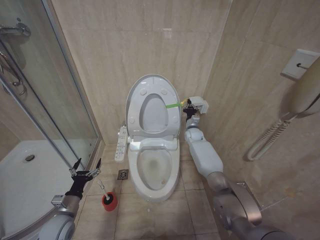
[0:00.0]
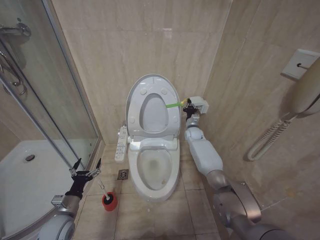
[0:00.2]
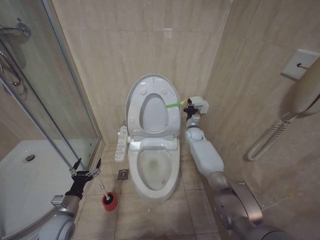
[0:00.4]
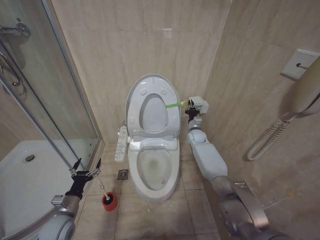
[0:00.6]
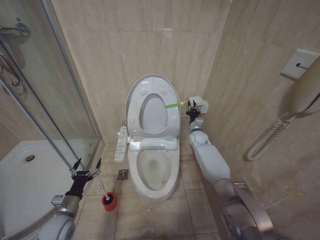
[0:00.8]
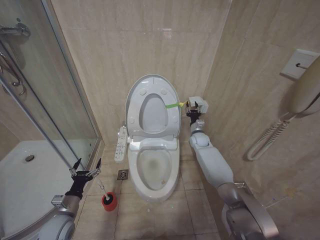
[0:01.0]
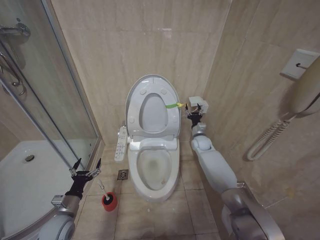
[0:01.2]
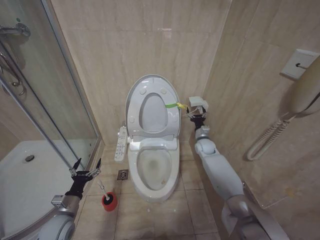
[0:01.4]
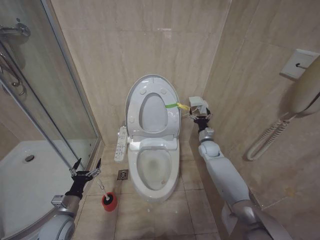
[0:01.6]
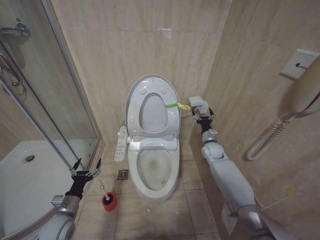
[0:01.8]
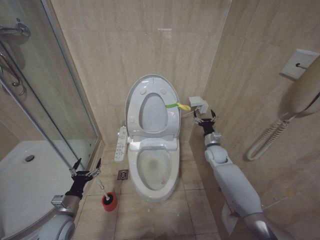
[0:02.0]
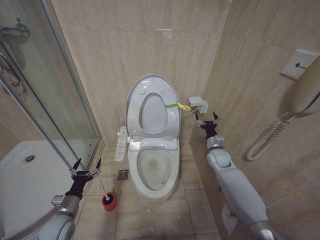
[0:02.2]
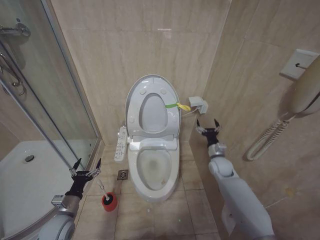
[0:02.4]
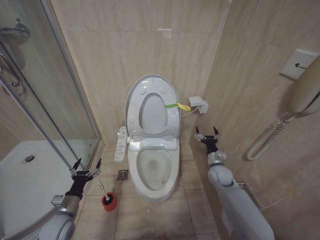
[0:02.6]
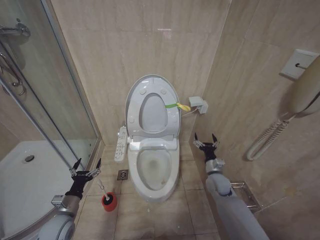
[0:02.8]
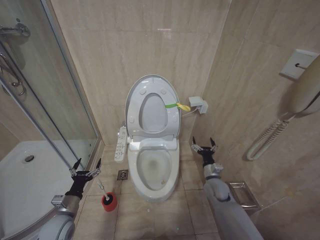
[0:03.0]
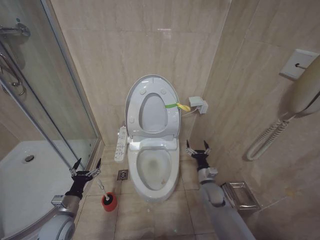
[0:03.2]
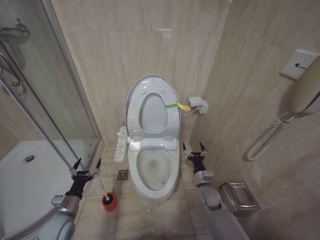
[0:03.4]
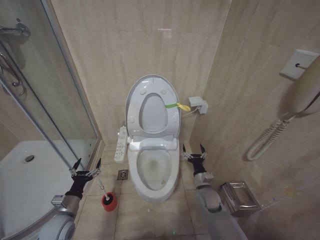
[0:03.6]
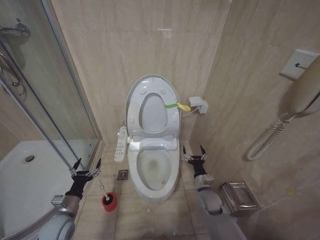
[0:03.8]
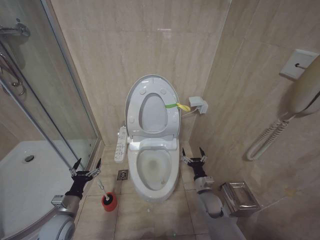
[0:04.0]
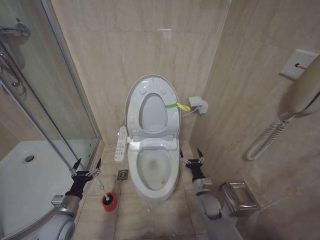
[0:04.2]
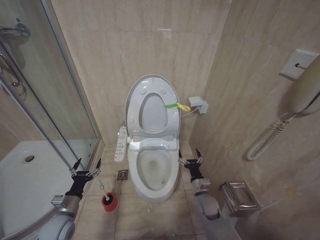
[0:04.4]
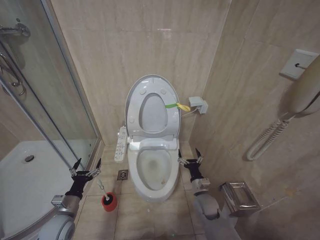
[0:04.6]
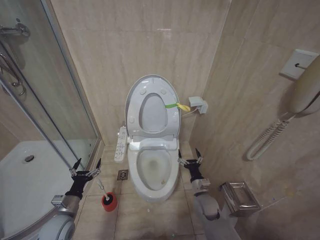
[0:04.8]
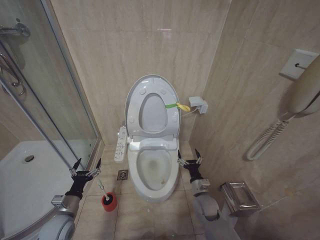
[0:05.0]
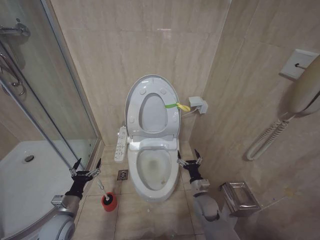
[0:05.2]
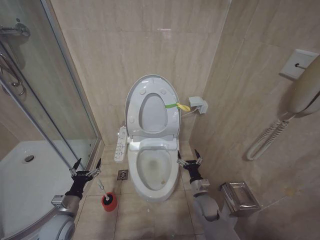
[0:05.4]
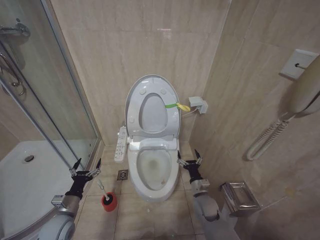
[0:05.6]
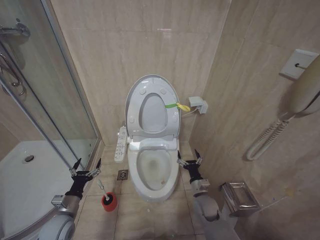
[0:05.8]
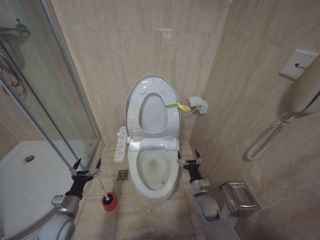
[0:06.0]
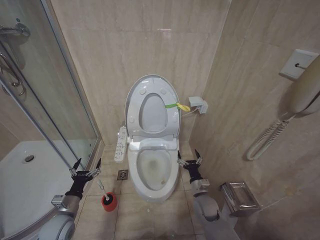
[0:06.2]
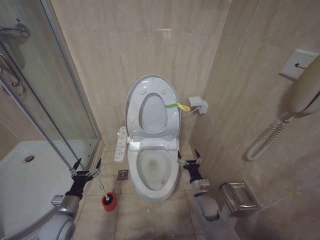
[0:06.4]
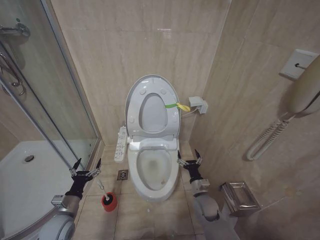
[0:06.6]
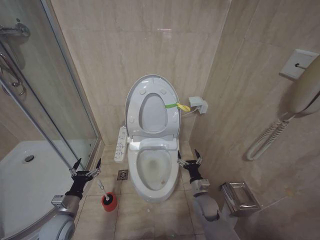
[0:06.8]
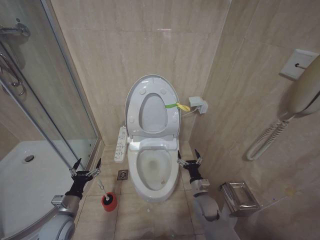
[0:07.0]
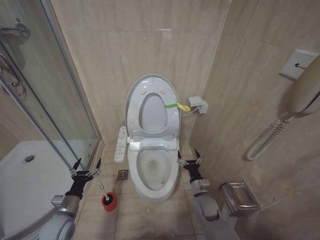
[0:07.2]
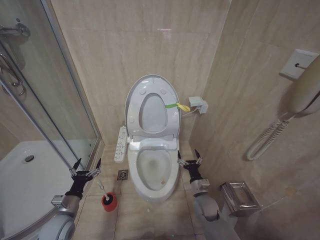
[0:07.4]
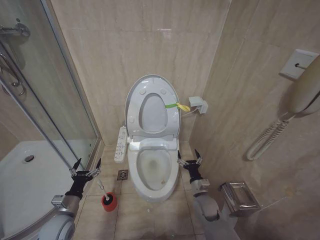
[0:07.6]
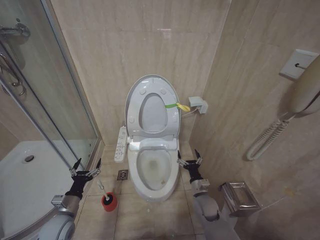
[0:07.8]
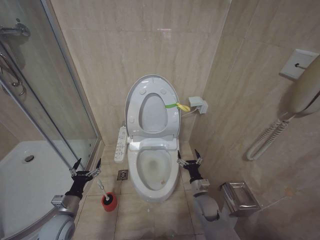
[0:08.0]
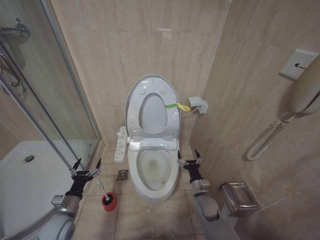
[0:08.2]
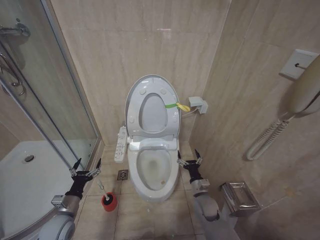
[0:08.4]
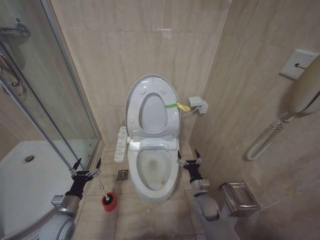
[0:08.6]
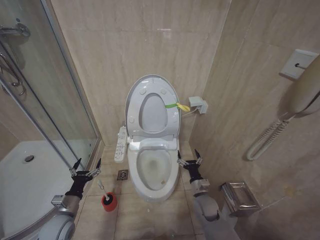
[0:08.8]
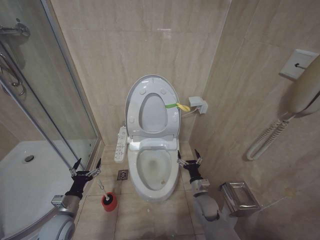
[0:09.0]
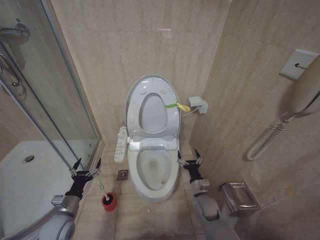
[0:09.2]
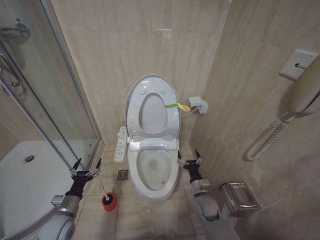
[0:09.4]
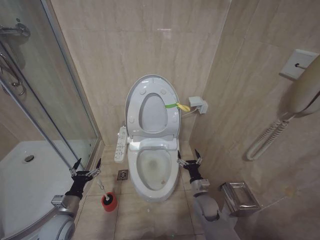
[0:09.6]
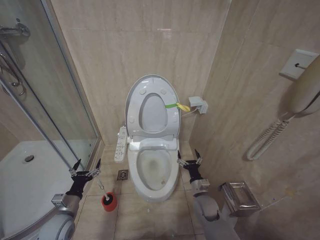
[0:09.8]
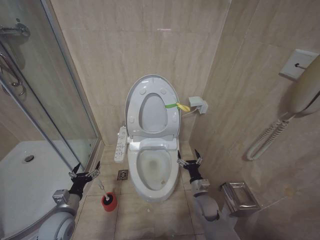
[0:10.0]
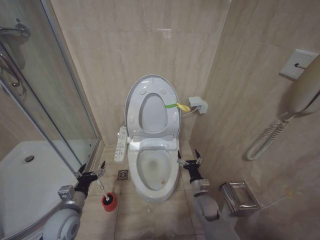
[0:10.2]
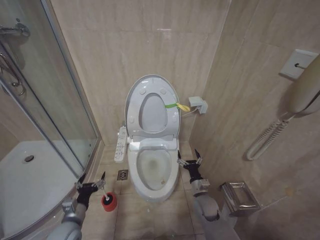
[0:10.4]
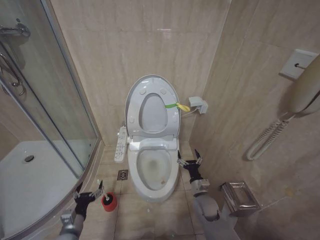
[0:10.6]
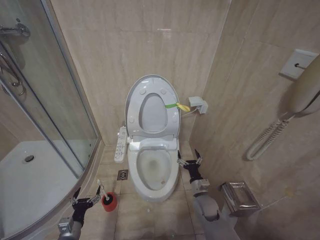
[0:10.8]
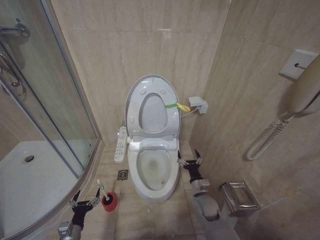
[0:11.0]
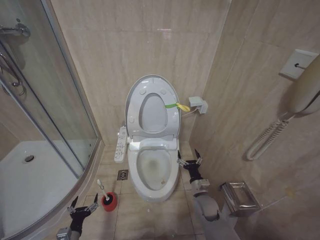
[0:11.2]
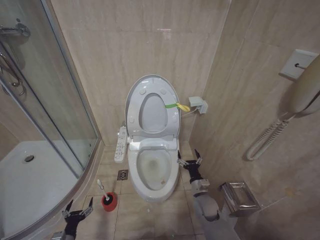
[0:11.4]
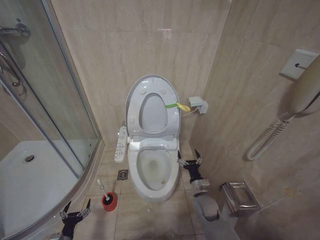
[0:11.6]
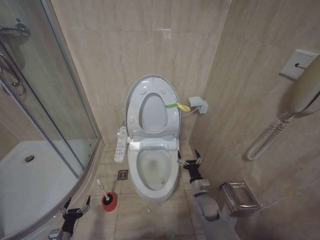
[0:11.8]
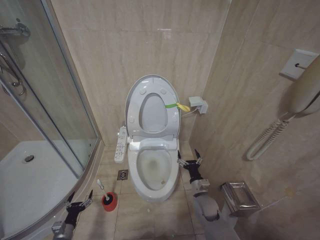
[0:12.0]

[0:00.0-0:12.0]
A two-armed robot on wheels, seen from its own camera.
Task of the whole recording: Open the toilet lid, clean the toilet bowl with a toilet brush, close the toilet lid, and flush.
0:00.0 to 0:01.6: The right gripper shifts roughly 10 cm backward and to the right, and opens its fingers.
0:01.6 to 0:03.0: The right gripper shifts some 20 cm backward and downward.
0:03.0 to 0:04.4: The right gripper is displaced to the left and backward by roughly 10 cm.
0:04.4 to 0:09.0: The two grippers keep their place.
0:09.0 to 0:10.4: There are only small adjustments of the grippers.
0:10.4 to 0:12.0: The left gripper heads downward and to the left, covering some 20 cm.

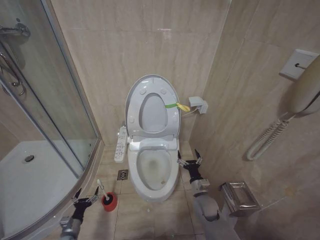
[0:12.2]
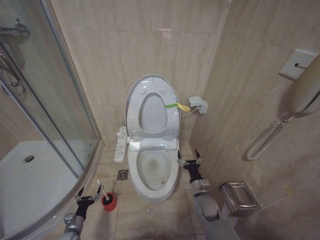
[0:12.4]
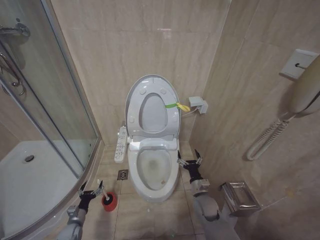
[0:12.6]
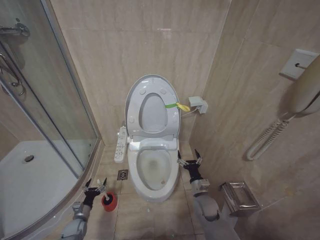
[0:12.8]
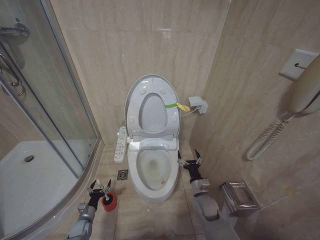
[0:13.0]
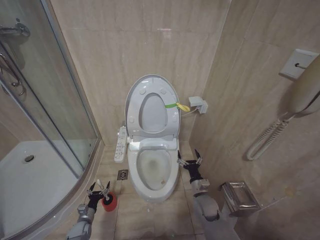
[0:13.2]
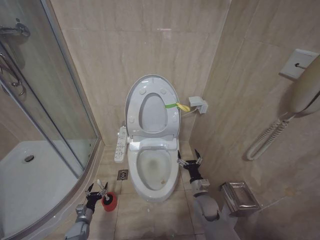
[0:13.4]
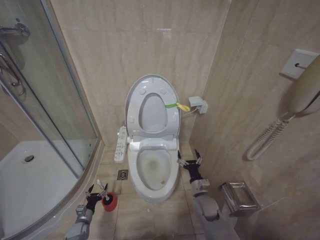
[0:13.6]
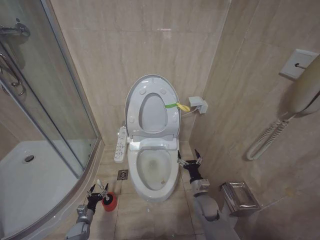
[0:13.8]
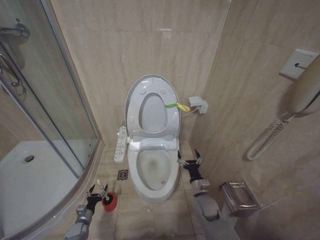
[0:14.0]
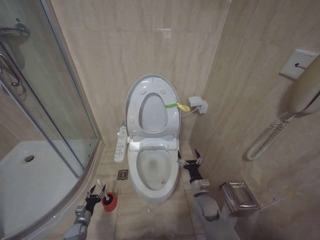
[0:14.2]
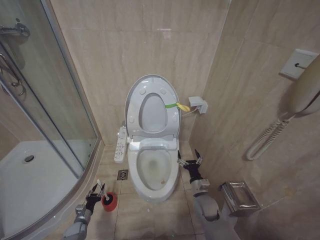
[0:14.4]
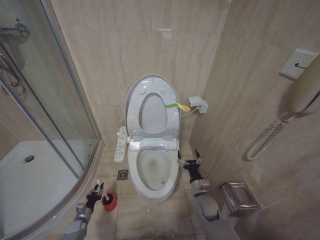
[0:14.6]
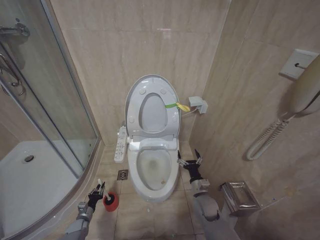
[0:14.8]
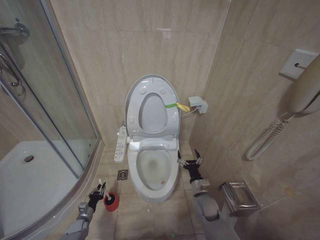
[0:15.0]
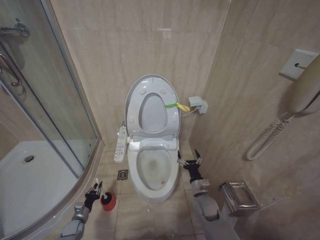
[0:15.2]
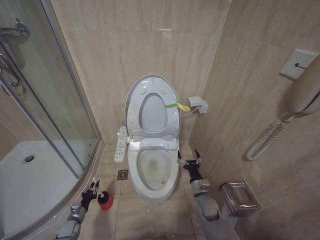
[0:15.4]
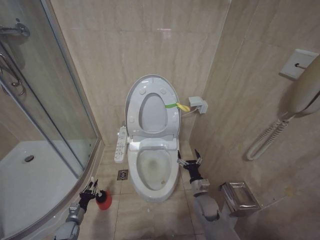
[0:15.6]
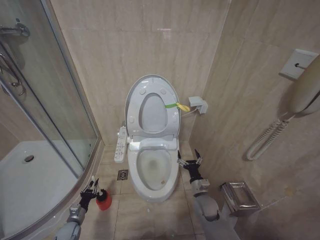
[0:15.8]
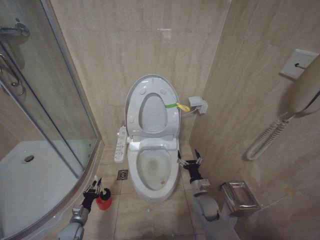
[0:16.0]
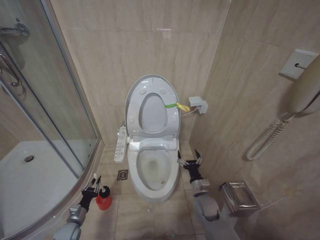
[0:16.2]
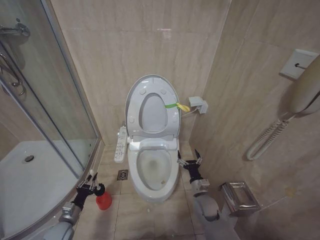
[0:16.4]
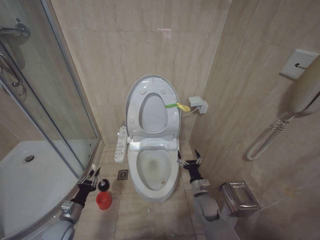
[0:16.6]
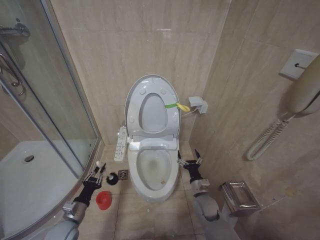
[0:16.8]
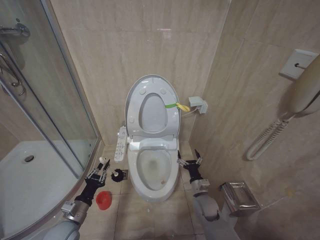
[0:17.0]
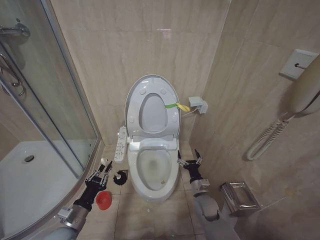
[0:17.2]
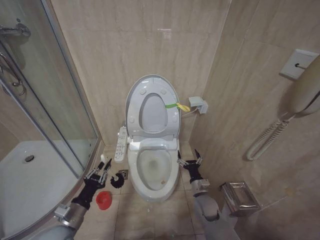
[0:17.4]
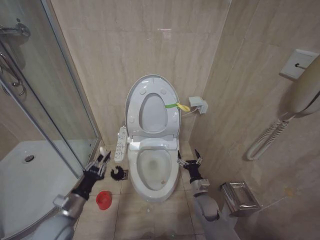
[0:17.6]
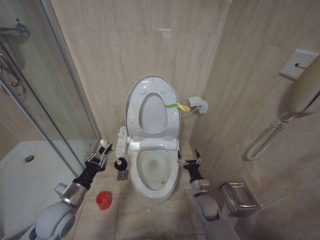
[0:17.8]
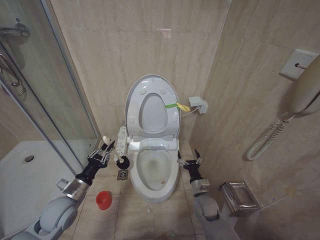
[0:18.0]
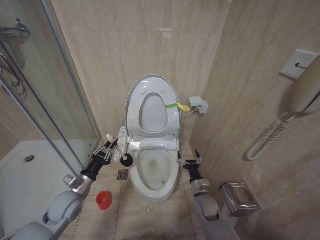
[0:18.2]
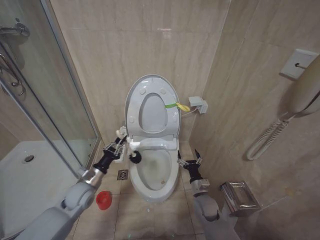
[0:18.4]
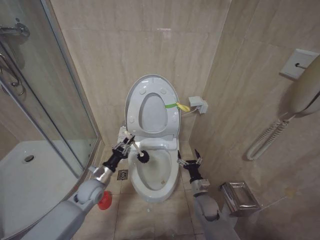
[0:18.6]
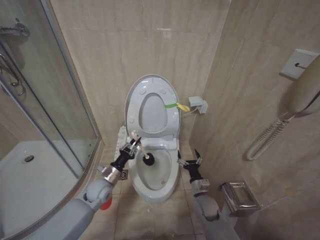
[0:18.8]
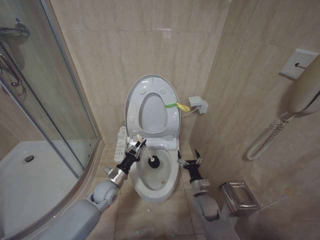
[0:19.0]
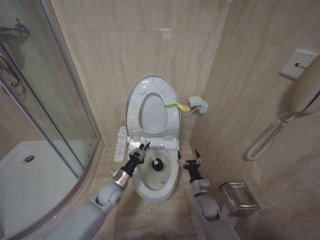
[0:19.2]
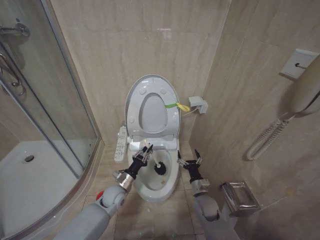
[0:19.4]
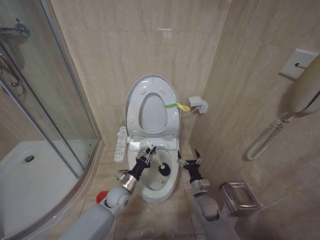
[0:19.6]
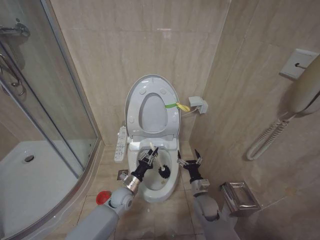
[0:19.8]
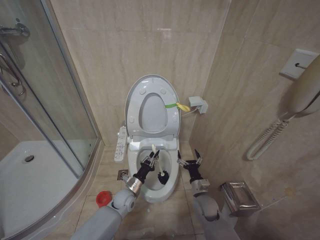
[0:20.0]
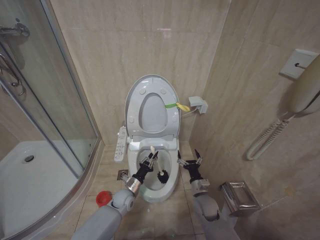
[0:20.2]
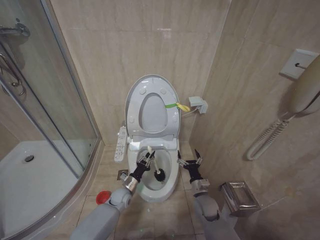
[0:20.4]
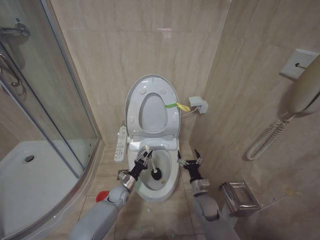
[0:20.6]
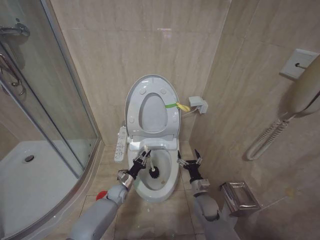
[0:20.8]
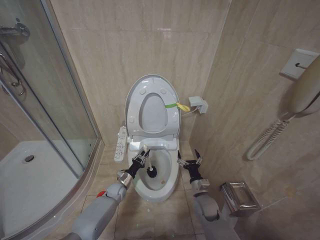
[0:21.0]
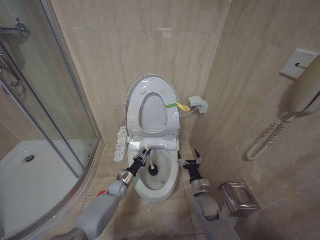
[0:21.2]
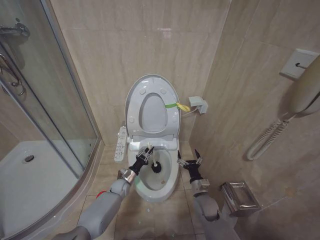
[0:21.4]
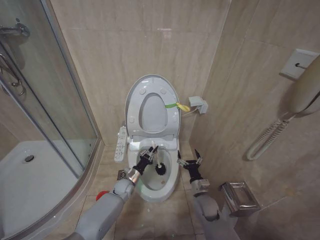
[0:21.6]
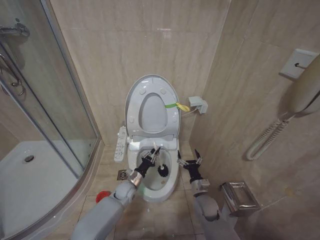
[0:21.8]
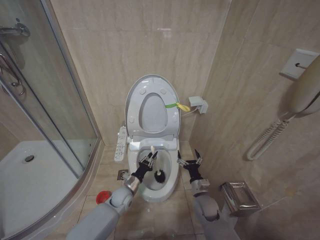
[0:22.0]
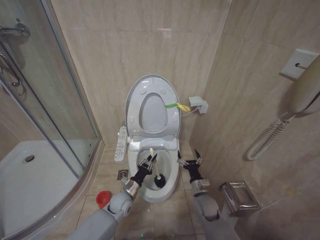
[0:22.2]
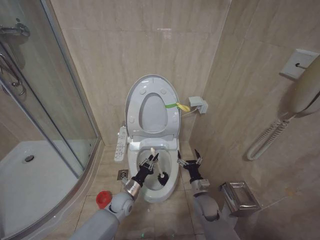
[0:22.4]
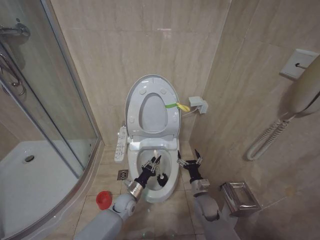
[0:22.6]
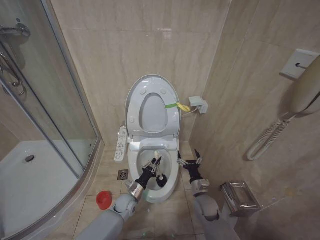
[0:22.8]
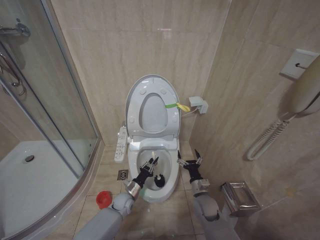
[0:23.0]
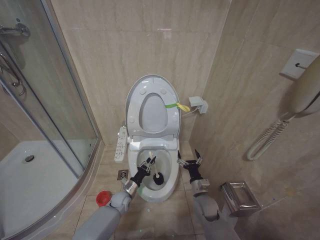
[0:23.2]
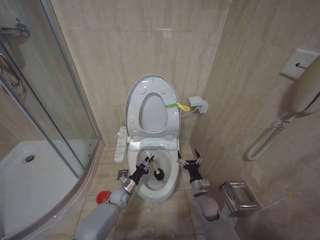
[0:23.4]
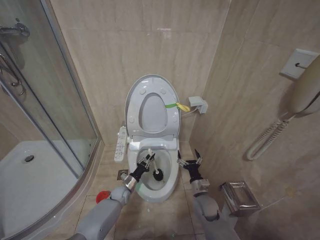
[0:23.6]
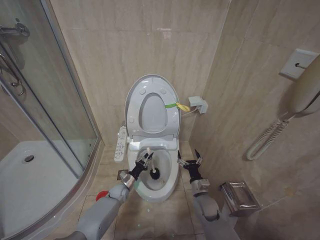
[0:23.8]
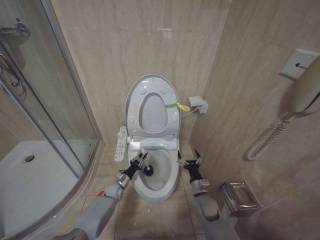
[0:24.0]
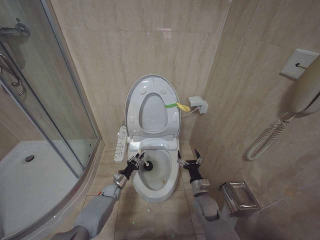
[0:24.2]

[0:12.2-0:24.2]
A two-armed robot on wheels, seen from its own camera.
Task of the whole recording: Open the toilet lid, clean the toilet bowl with a toilet brush, close the toilet lid, and flush.
0:12.2 to 0:13.8: The left gripper travels forward and downward by approximately 10 cm.
0:13.8 to 0:15.2: The left gripper closes up.
0:15.2 to 0:16.6: The left gripper heads upward, covering some 15 cm.
0:16.6 to 0:18.2: The left gripper heads upward and to the right, covering roughly 15 cm.
0:18.2 to 0:19.8: The left gripper heads to the right, downward and forward, covering about 20 cm.
0:19.8 to 0:21.2: The left gripper is displaced downward and forward by some 10 cm.
0:21.2 to 0:22.6: The left gripper moves backward and to the right, about 10 cm.
0:22.6 to 0:24.2: The left gripper is displaced to the left, forward and downward by about 15 cm.
